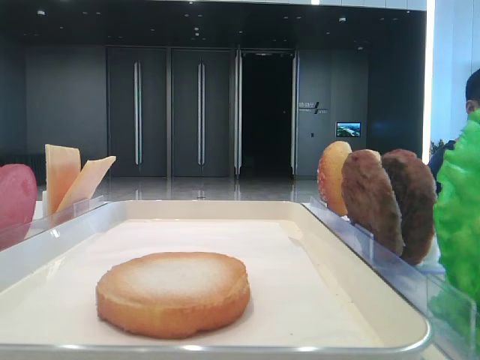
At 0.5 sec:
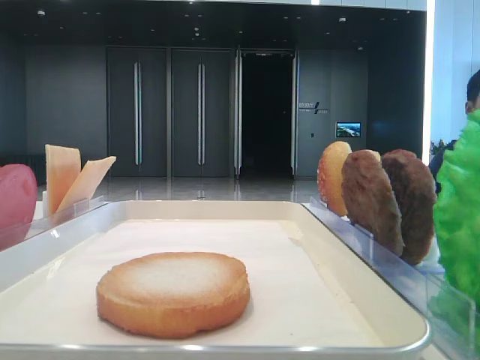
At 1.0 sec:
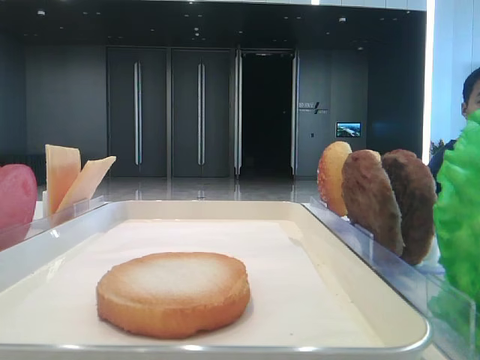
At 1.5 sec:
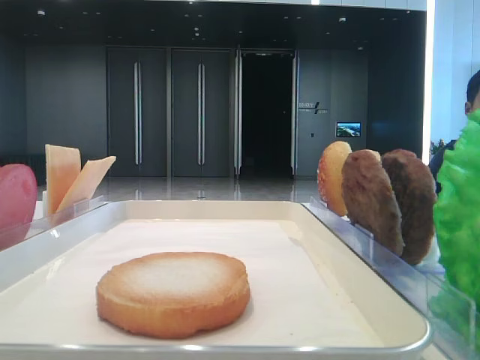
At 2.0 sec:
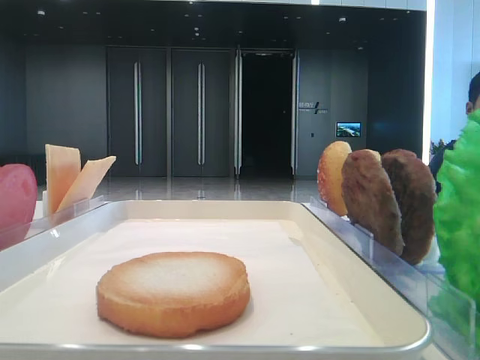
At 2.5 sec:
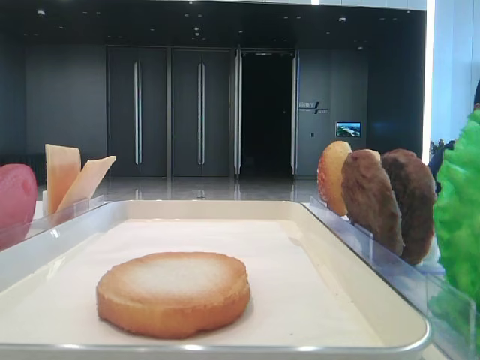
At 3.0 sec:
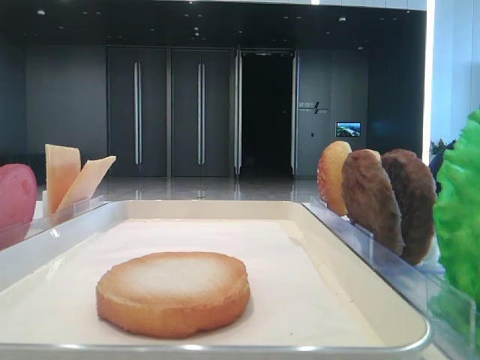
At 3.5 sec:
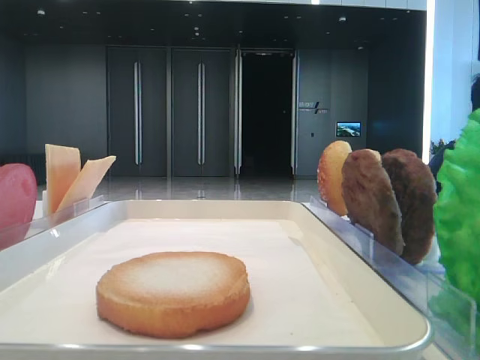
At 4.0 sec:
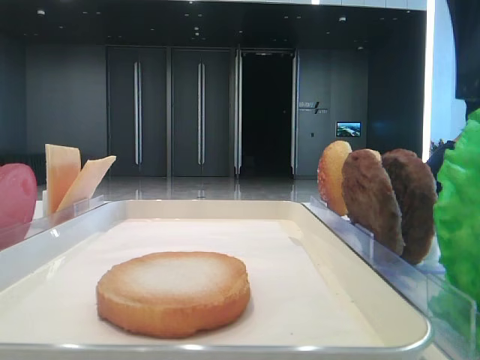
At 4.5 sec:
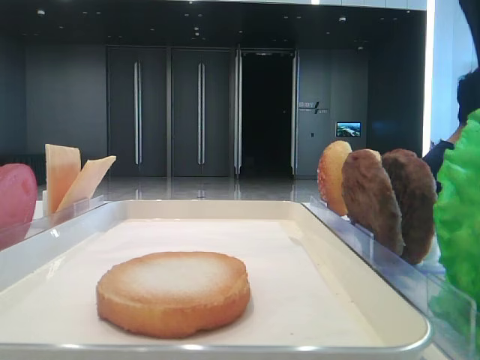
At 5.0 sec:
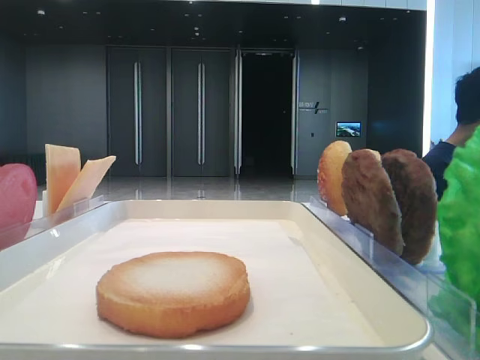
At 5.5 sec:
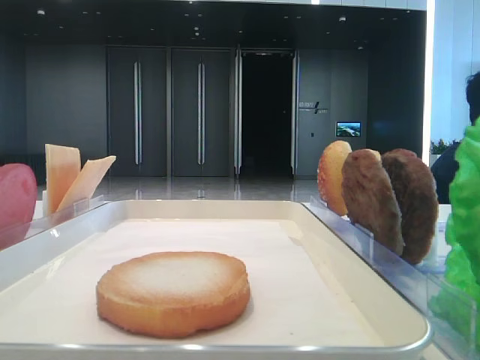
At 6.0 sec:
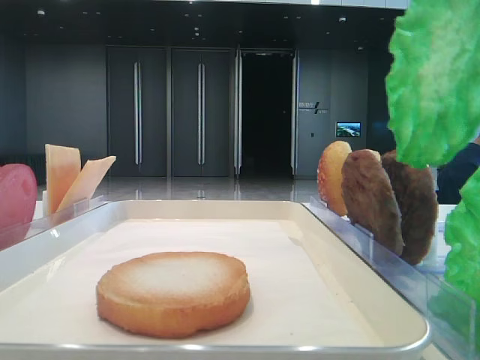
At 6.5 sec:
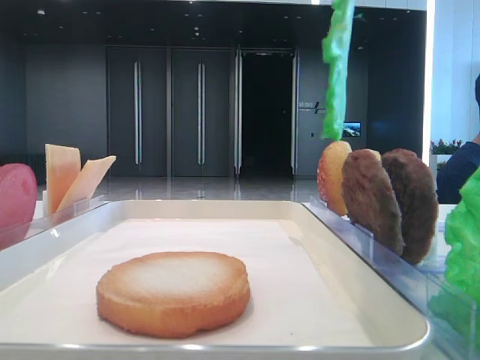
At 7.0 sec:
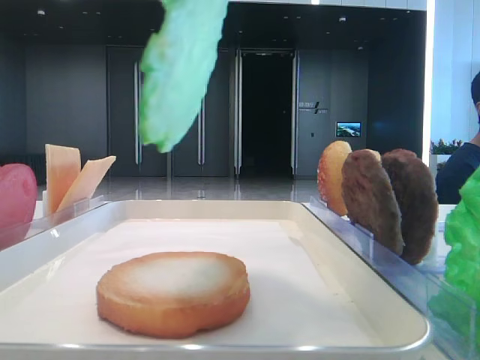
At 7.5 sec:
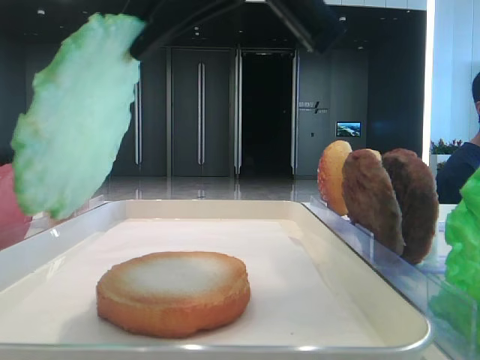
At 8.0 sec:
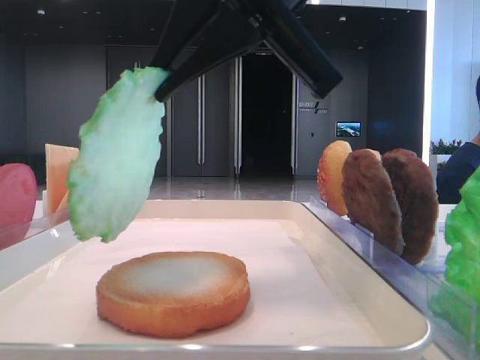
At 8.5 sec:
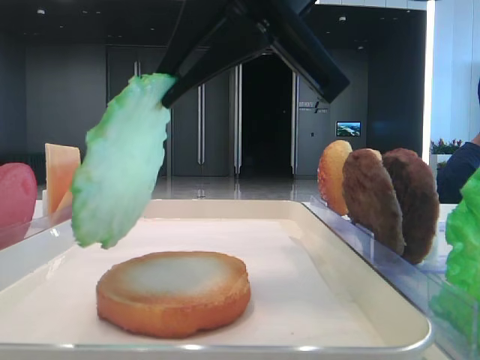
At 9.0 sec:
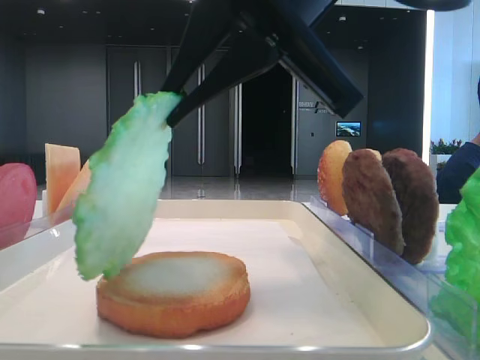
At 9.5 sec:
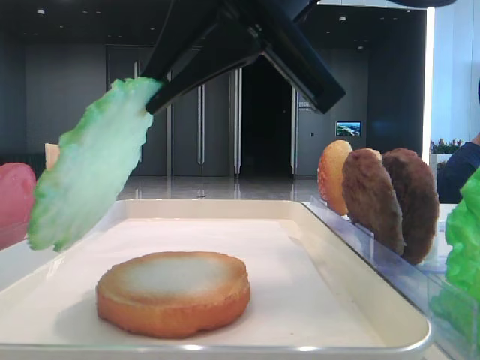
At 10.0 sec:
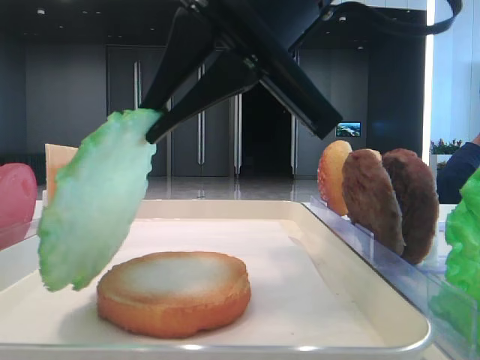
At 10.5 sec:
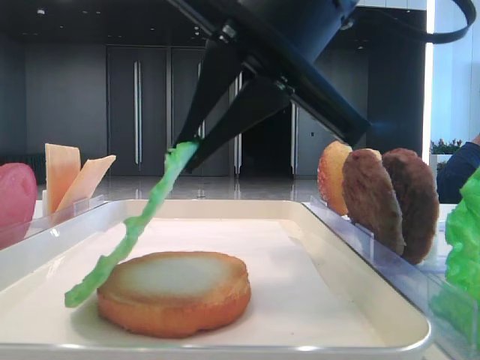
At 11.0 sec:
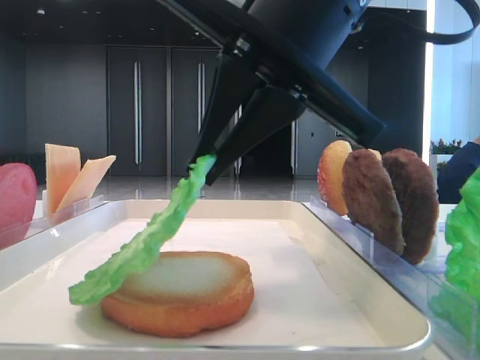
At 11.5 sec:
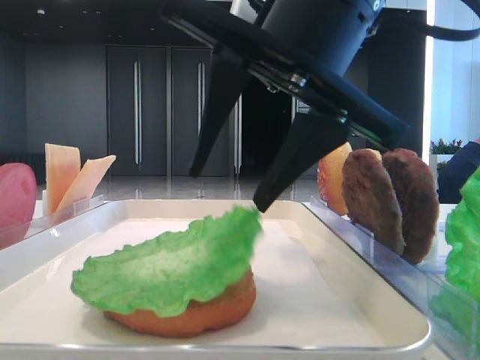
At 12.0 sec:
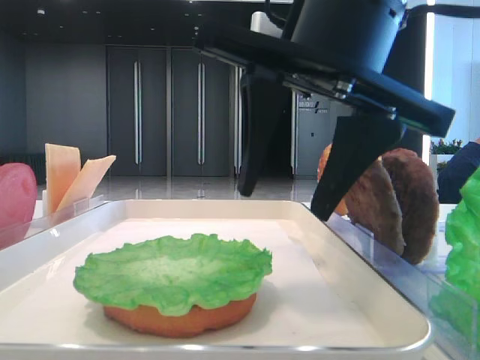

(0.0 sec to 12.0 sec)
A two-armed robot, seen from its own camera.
Step, 0.0 sec - 4.5 sec: Grab the lettuce leaf with the right hand.
Step, 5.0 sec - 11.5 sec: Place the lettuce leaf on the bottom bread with the right hand.
2.0 sec - 4.0 sec: The right gripper moves to the left, roughly 15 cm.
4.0 sec - 6.0 sec: The right gripper heads upward, covering some 5 cm, and closes its fingers.
6.0 sec - 8.0 sec: The right gripper goes approximately 15 cm to the left, downward and forward.
8.0 sec - 10.0 sec: The grippers make only small movements.
10.0 sec - 12.0 sec: The right gripper opens.

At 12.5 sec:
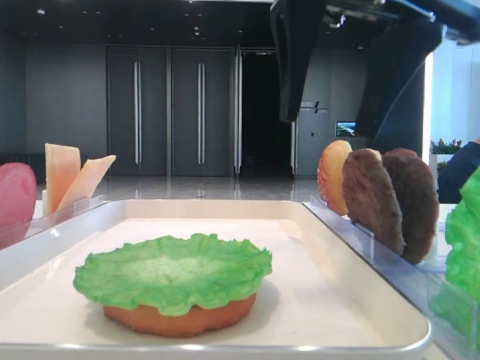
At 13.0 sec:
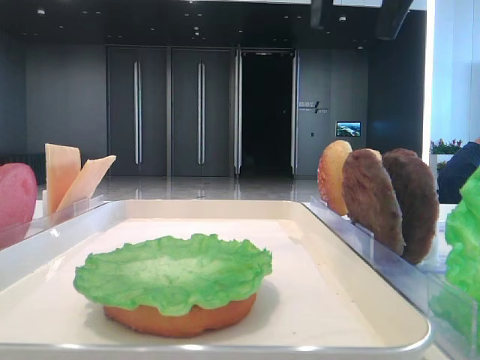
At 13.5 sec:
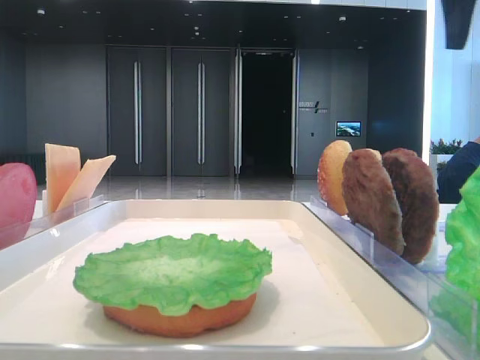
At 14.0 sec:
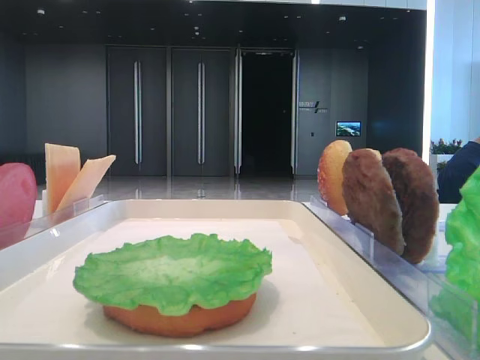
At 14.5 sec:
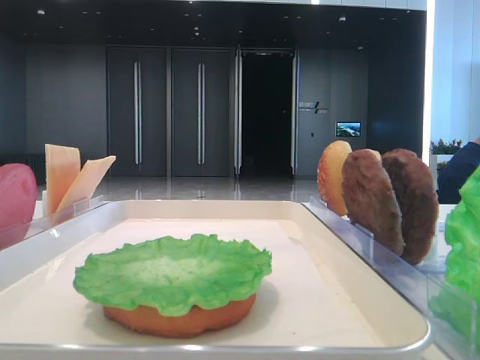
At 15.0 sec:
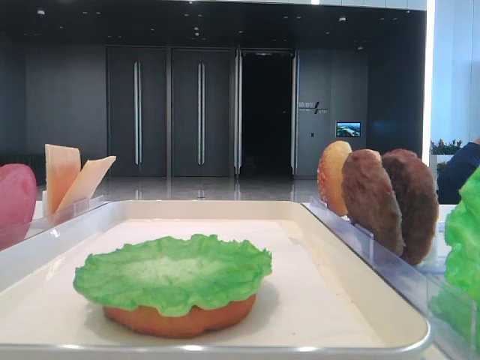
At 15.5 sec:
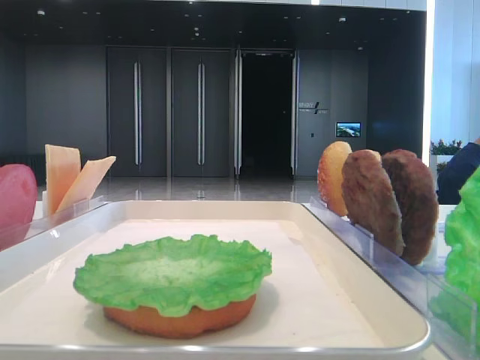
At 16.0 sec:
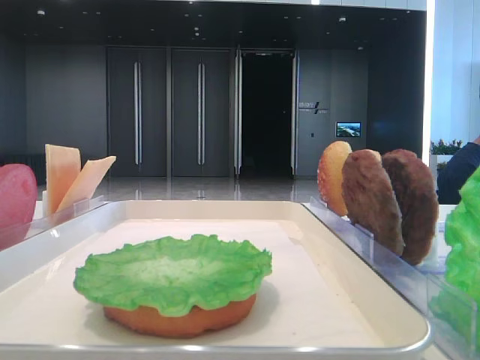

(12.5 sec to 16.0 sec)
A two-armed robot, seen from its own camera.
12.5 sec - 14.5 sec: The right gripper goes some 25 cm to the right and backward.

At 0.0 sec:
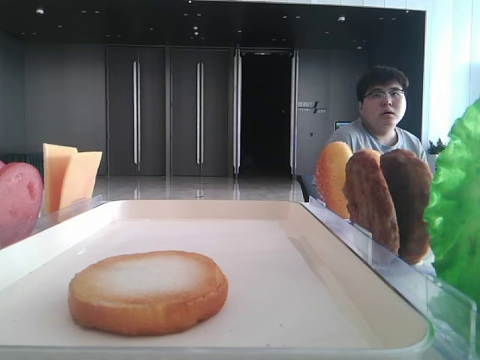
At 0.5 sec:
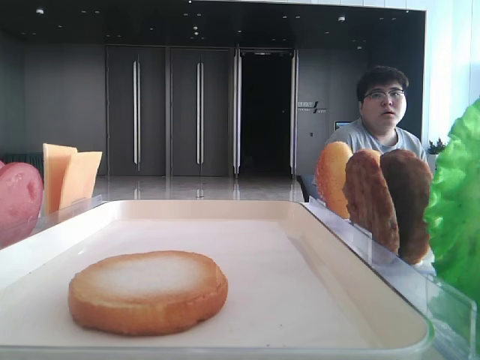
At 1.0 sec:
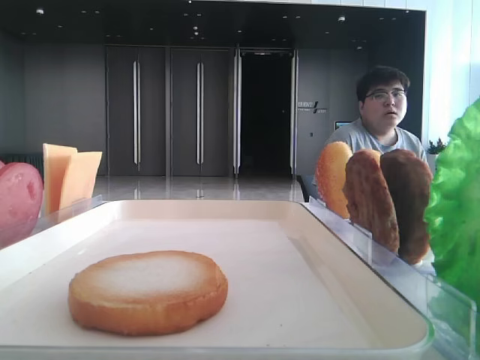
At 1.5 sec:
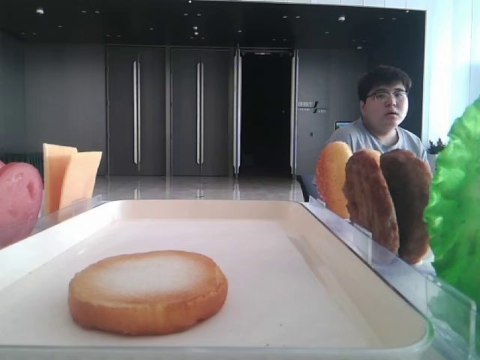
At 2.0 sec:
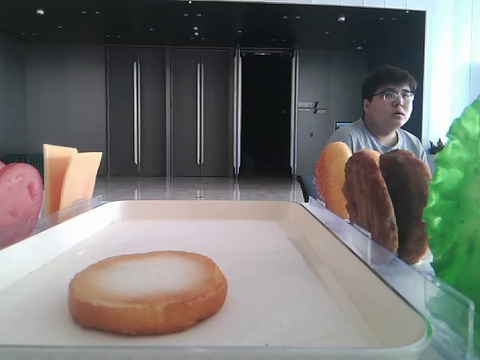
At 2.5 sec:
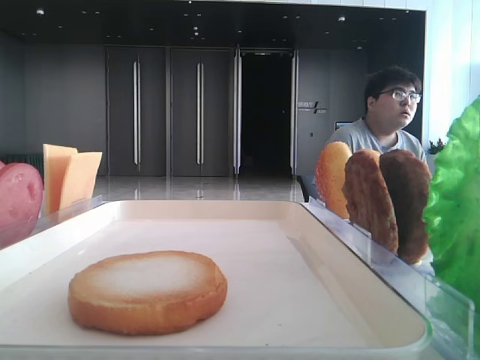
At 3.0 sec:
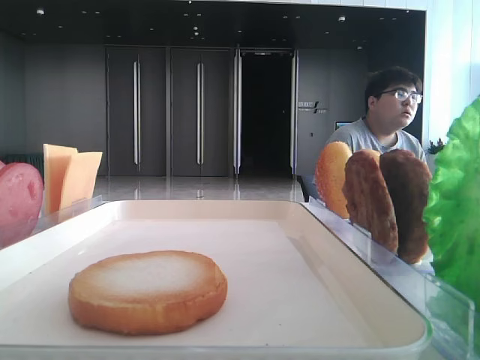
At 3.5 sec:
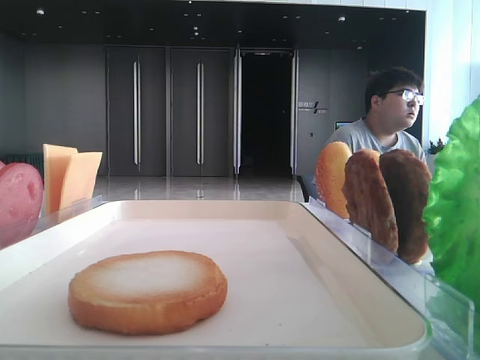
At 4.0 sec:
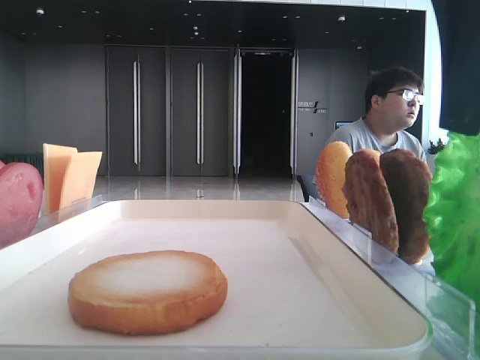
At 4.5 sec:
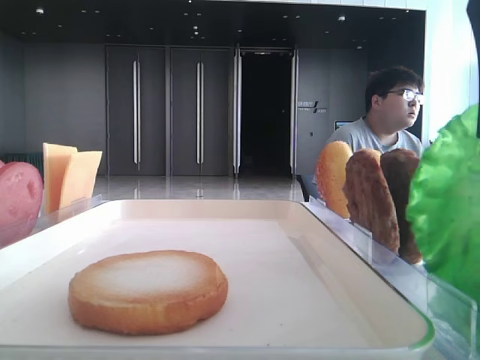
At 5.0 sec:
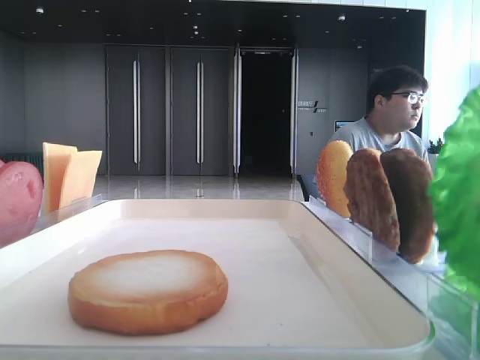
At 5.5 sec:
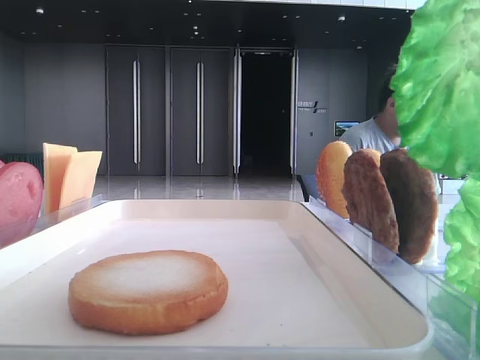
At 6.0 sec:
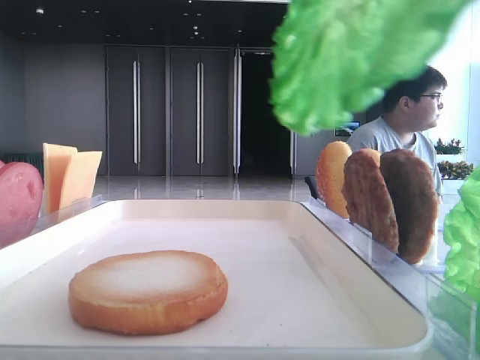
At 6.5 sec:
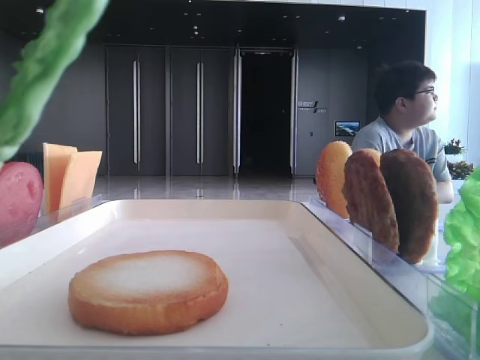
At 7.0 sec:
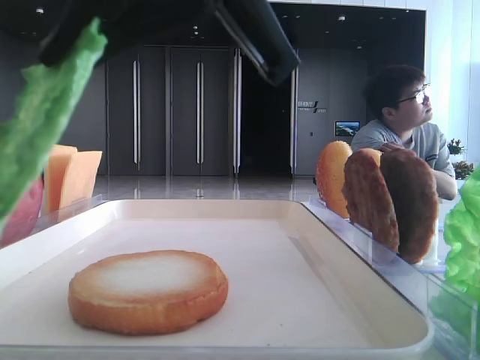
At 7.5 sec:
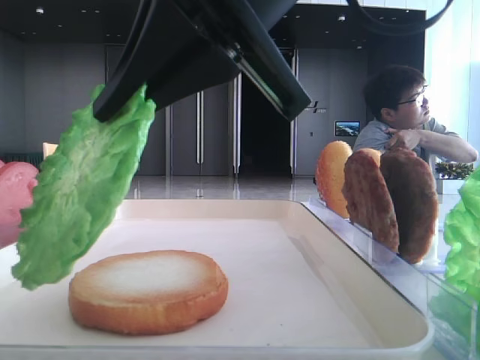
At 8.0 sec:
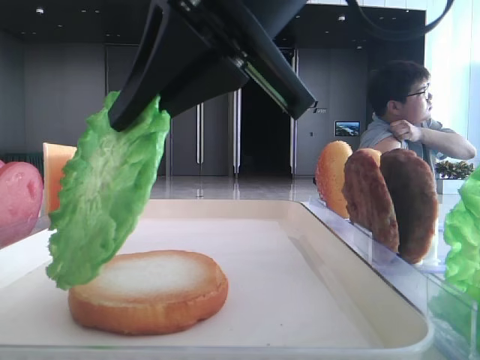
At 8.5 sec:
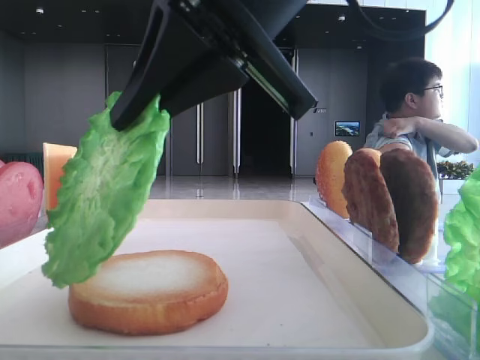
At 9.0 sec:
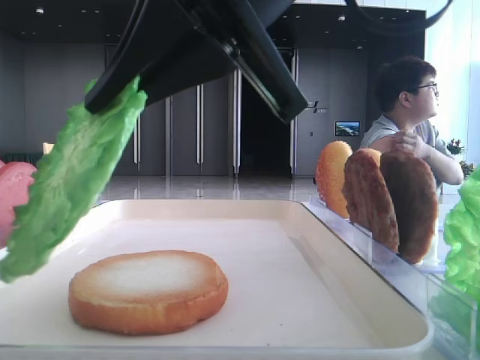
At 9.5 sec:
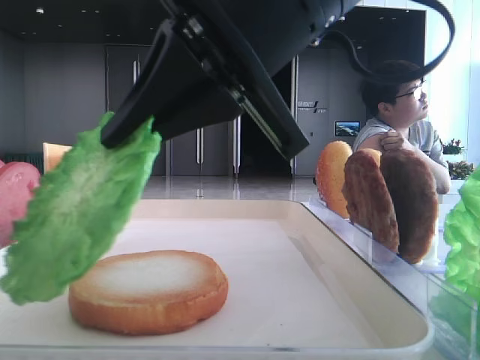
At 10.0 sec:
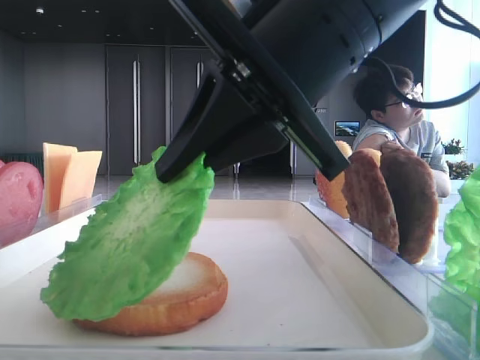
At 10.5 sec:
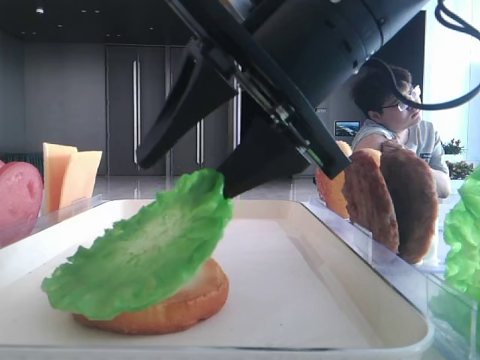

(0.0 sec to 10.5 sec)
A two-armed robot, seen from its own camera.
Step, 0.0 sec - 4.5 sec: Grab the lettuce leaf with the right hand.
2.0 sec - 4.0 sec: The right gripper travels to the left, forward and downward by some 15 cm.
4.0 sec - 6.5 sec: The left gripper closes. Meanwhile the right gripper moves to the left, approximately 10 cm, and closes its fingers.
6.5 sec - 8.5 sec: The right gripper heads forward and downward, covering some 10 cm.
8.5 sec - 10.5 sec: The right gripper changes place by approximately 5 cm, and opens its fingers.
